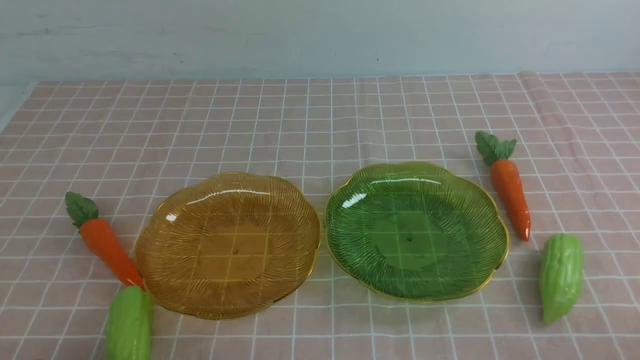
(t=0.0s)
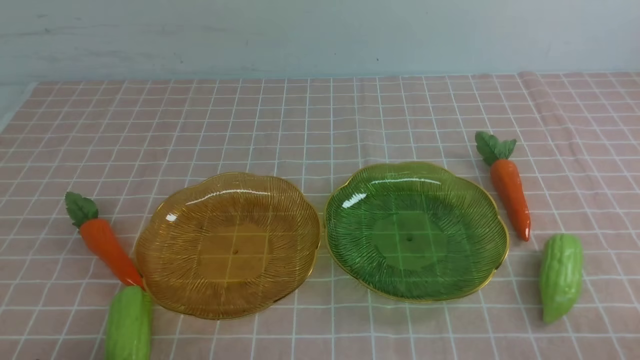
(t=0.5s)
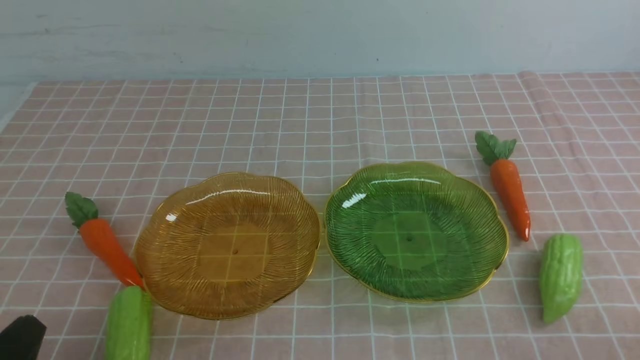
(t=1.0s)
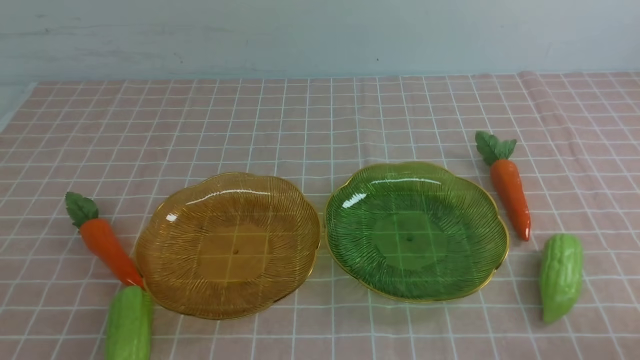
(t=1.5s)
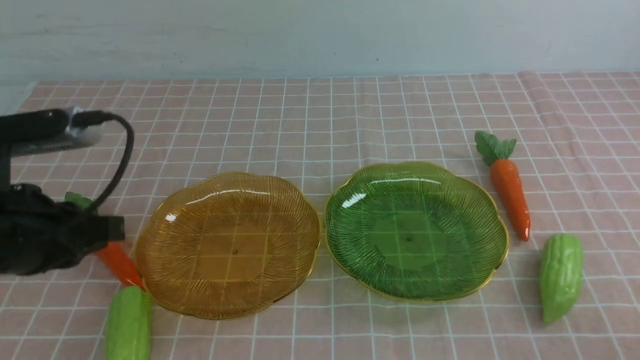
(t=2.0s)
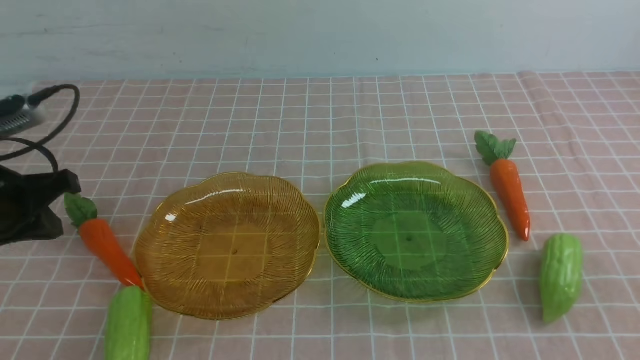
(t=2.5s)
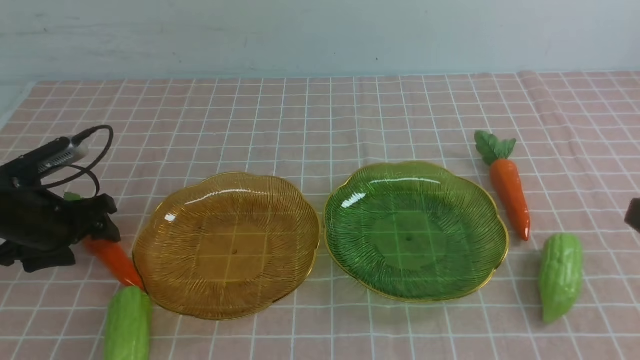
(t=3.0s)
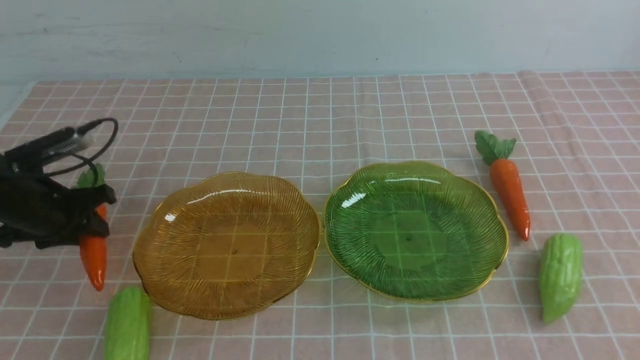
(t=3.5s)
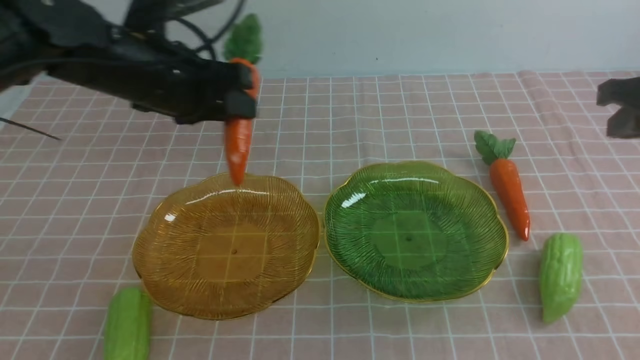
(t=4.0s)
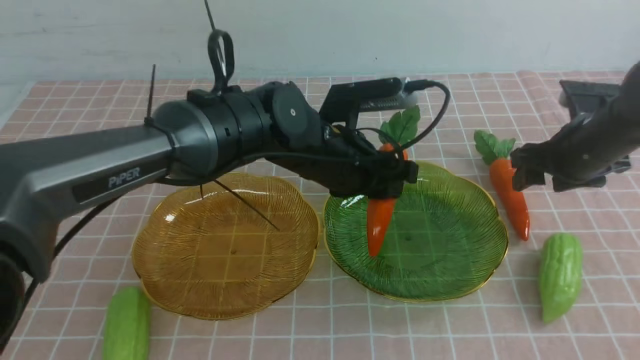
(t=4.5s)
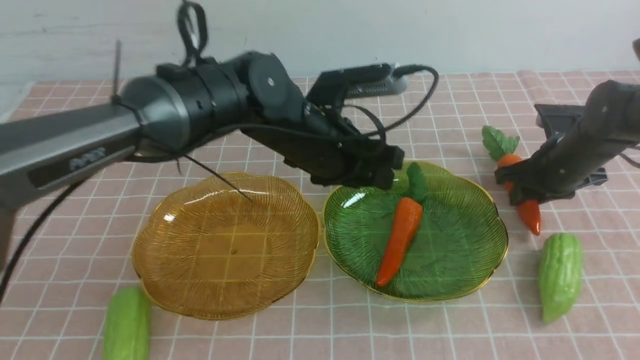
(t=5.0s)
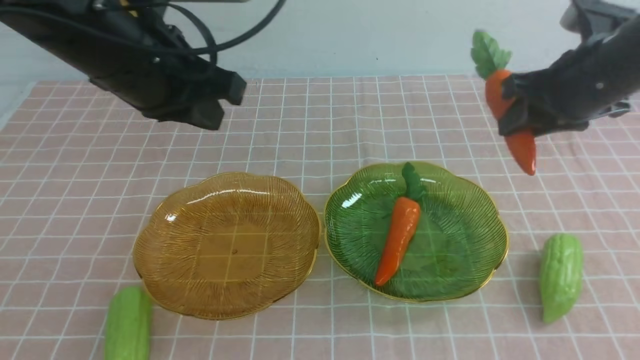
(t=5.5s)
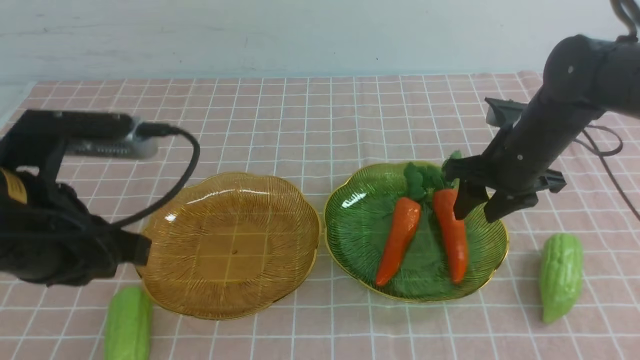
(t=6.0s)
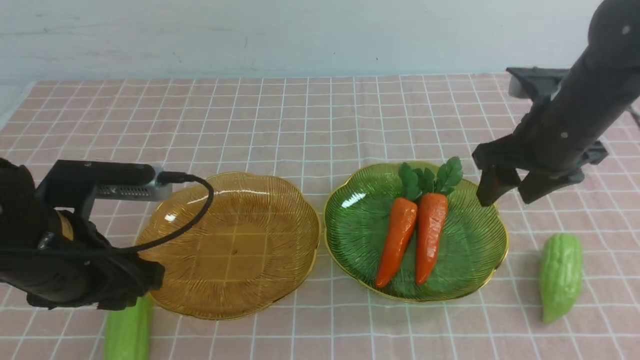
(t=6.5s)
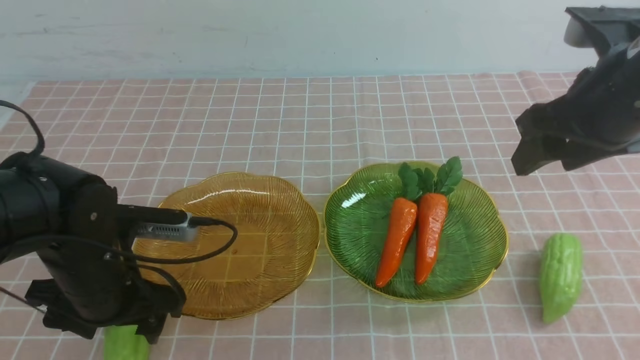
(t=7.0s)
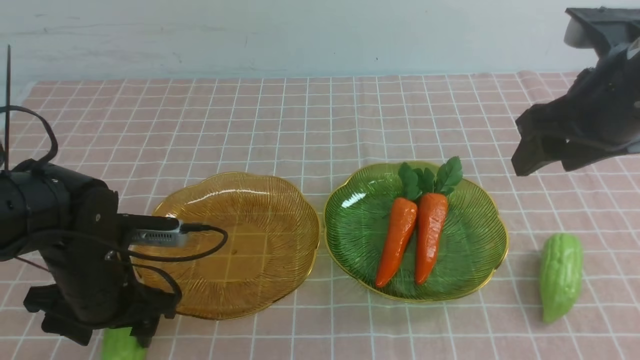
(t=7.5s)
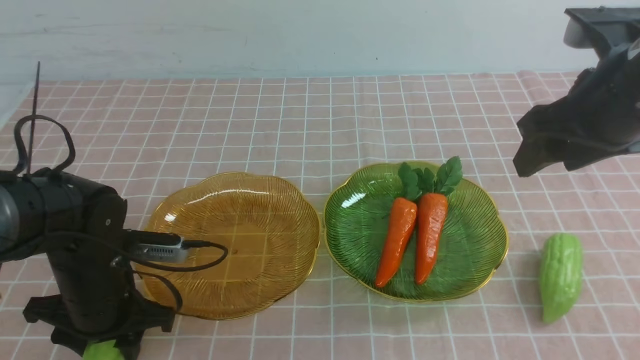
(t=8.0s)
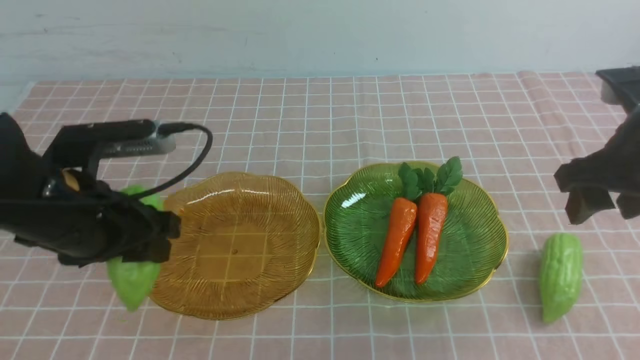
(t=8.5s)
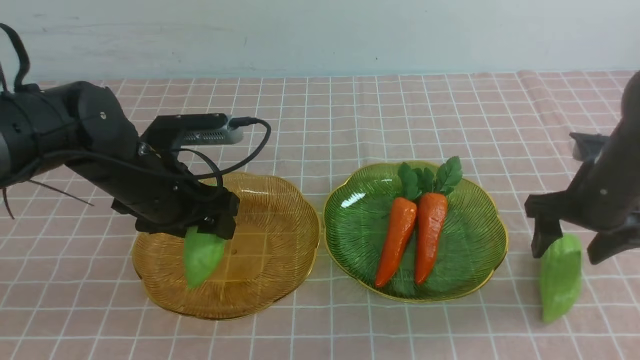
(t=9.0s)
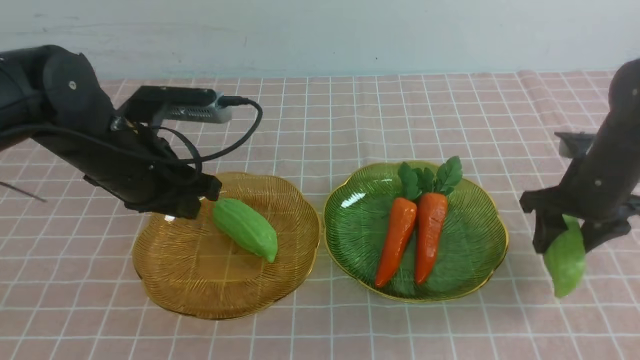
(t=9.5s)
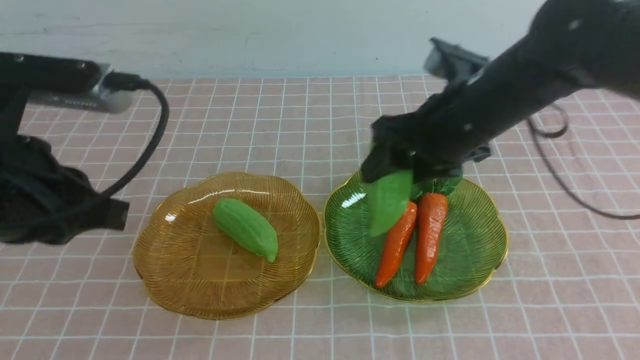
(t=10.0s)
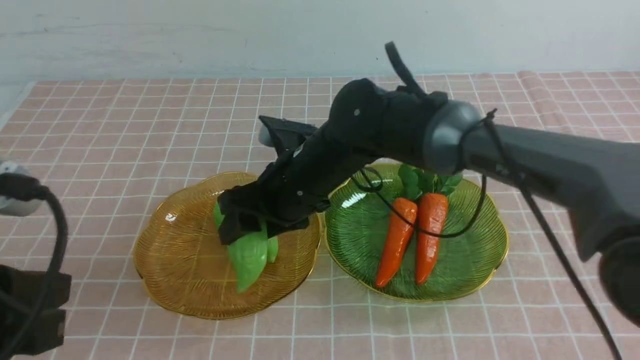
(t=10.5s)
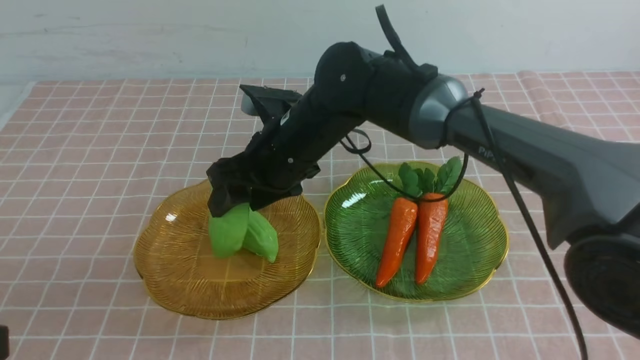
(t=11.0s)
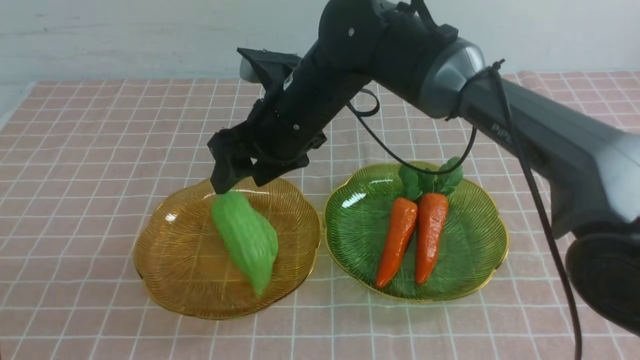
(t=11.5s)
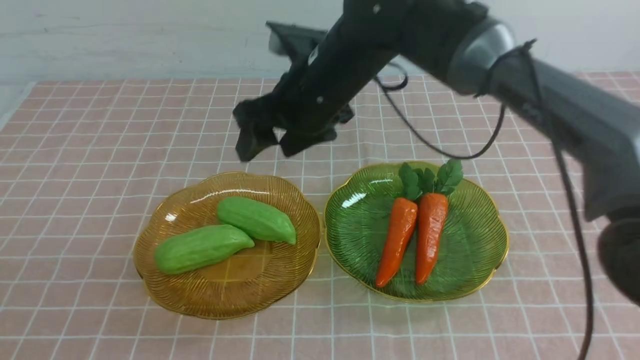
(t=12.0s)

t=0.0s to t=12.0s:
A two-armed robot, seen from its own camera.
Step, t=0.0s to t=4.5s: use the left arm to grab a carrot and put it into the right plate.
Step, t=5.0s to t=6.0s: use the right arm to grab a carrot and put it into the right plate.
Step, t=6.5s to t=9.0s: use the left arm to grab a chayote and put it into the left plate.
Step, t=9.5s to t=11.5s: Grab the chayote with your right arm and put it on the left plate.
t=0.0s to t=2.0s: The left gripper shifts roughly 20 cm forward and upward.
t=2.0s to t=4.0s: The left gripper heads to the right and forward, covering roughly 25 cm, and opens, while the right gripper moves forward, about 30 cm, and opens its fingers.
t=4.0s to t=6.0s: The left gripper heads to the left and backward, covering roughly 20 cm, and closes its fingers. Meanwhile the right gripper moves up and down over roughly 10 cm, changing direction 2 times.
t=6.0s to t=8.0s: The left gripper moves downward, roughly 15 cm, and opens up. Meanwhile the right gripper travels upward and backward by about 15 cm.
t=8.0s to t=10.0s: The left gripper travels upward and backward by approximately 20 cm, and closes its fingers. The right gripper moves to the left and downward, roughly 25 cm.
t=10.0s to t=12.0s: The right gripper shifts approximately 10 cm upward; the left gripper travels backward by about 10 cm.
